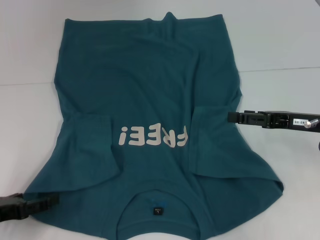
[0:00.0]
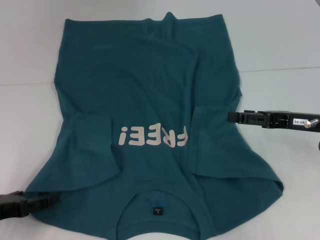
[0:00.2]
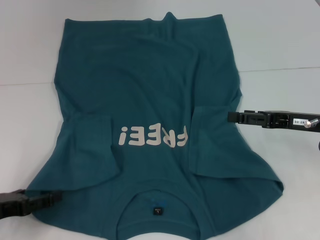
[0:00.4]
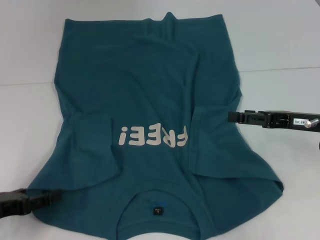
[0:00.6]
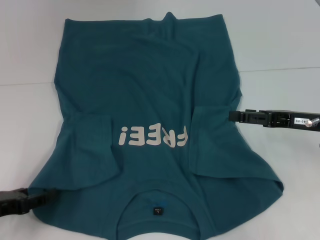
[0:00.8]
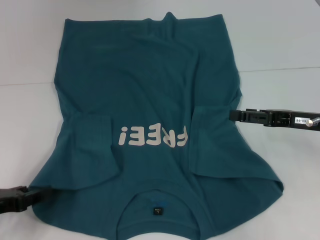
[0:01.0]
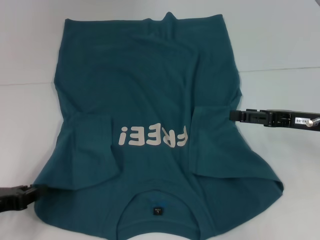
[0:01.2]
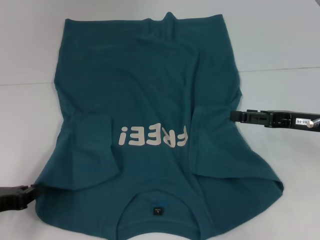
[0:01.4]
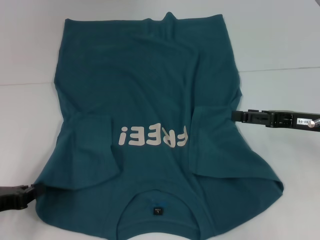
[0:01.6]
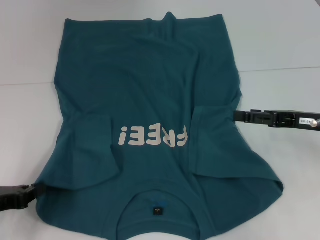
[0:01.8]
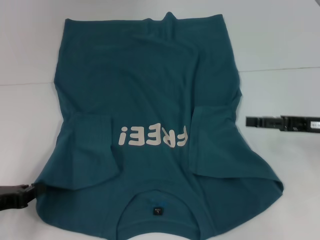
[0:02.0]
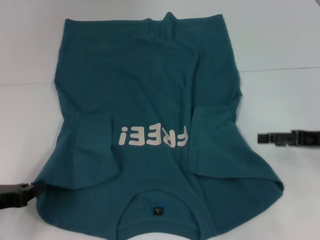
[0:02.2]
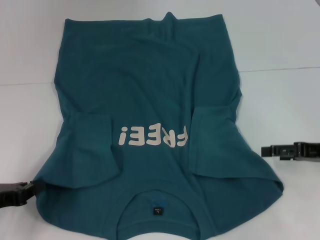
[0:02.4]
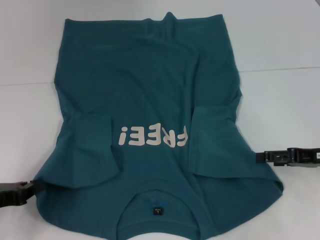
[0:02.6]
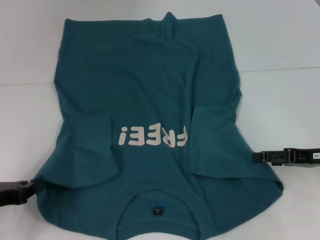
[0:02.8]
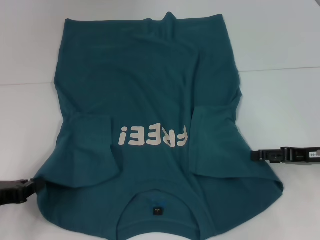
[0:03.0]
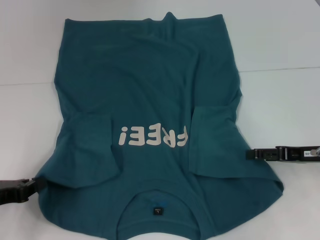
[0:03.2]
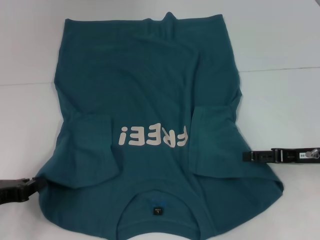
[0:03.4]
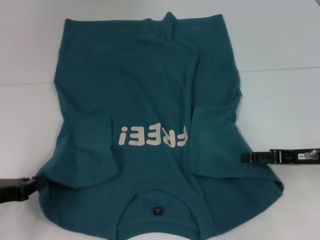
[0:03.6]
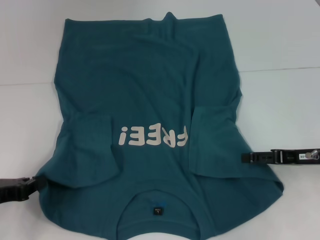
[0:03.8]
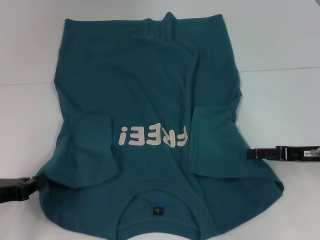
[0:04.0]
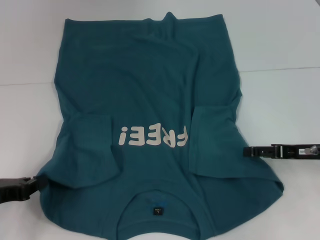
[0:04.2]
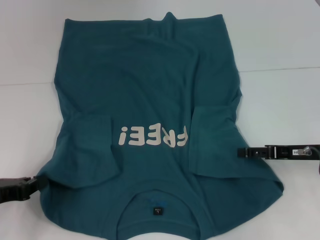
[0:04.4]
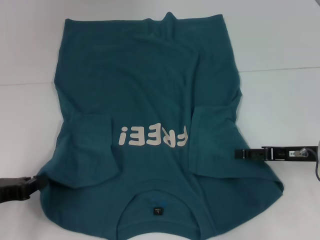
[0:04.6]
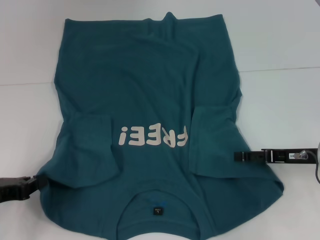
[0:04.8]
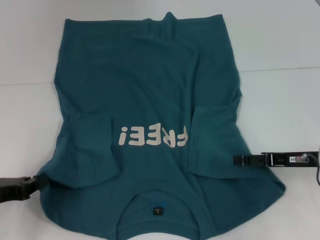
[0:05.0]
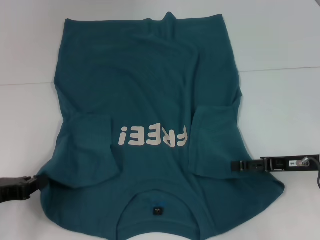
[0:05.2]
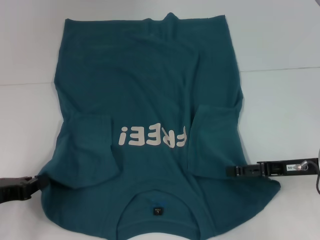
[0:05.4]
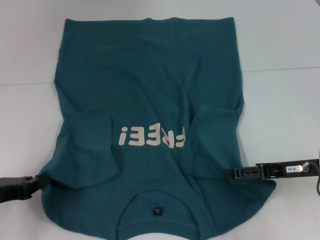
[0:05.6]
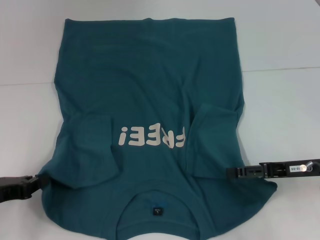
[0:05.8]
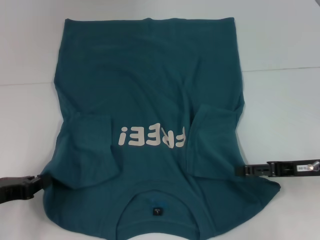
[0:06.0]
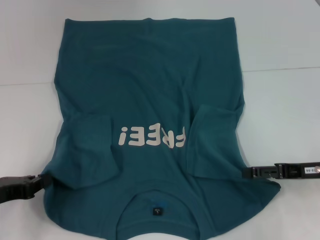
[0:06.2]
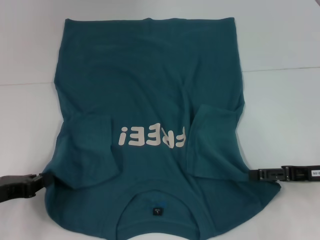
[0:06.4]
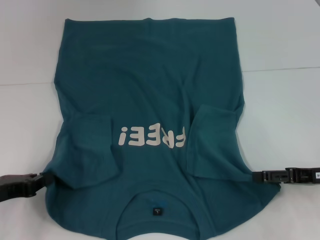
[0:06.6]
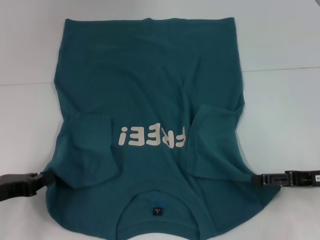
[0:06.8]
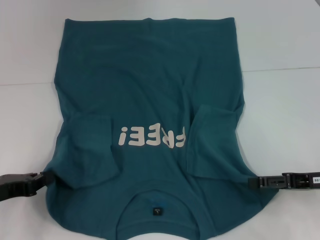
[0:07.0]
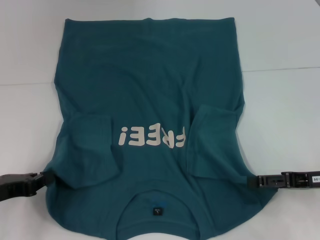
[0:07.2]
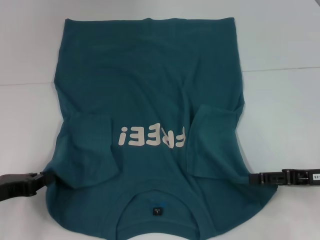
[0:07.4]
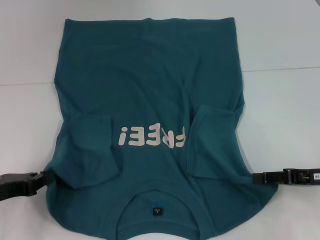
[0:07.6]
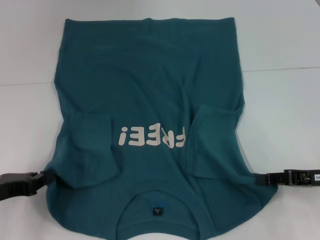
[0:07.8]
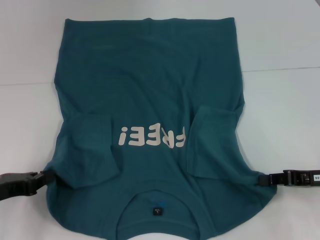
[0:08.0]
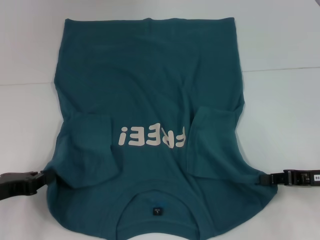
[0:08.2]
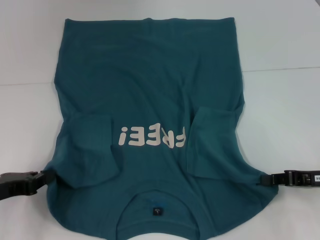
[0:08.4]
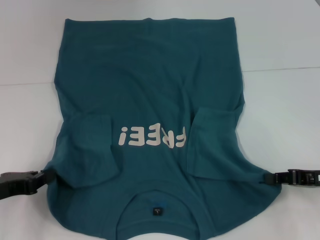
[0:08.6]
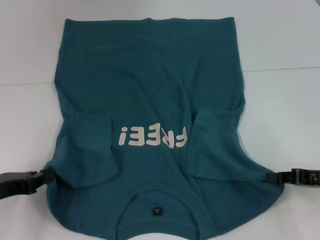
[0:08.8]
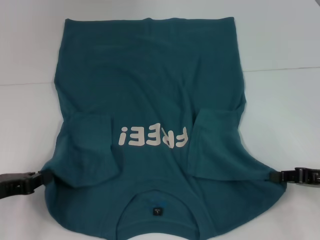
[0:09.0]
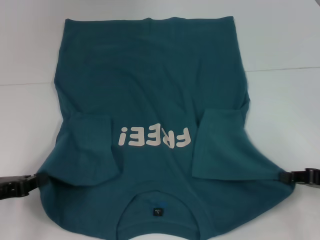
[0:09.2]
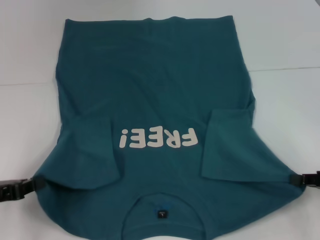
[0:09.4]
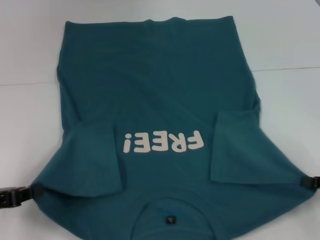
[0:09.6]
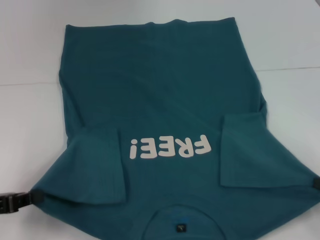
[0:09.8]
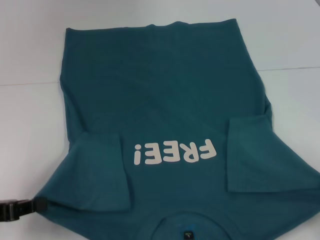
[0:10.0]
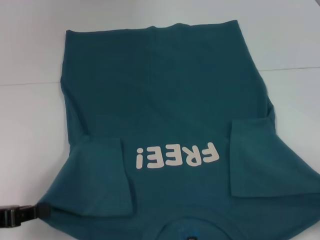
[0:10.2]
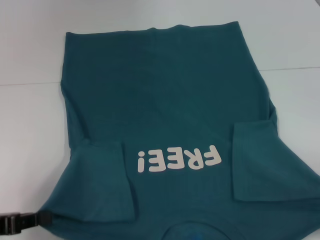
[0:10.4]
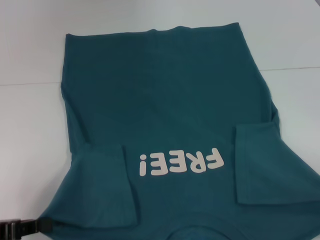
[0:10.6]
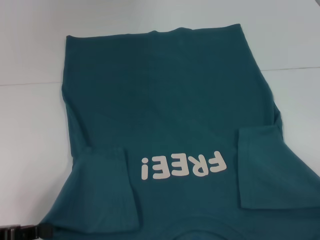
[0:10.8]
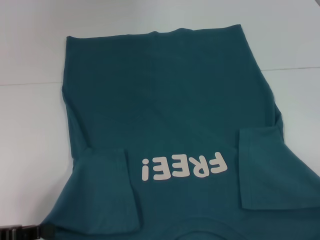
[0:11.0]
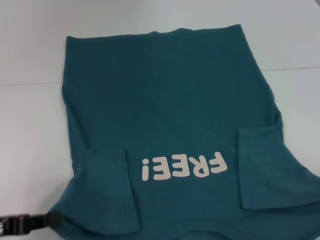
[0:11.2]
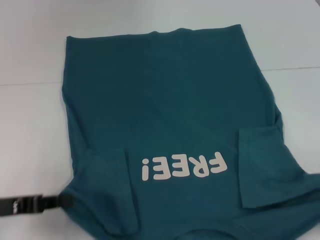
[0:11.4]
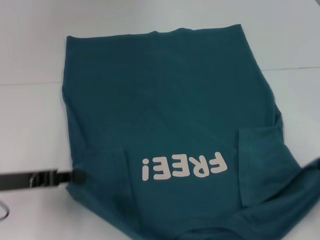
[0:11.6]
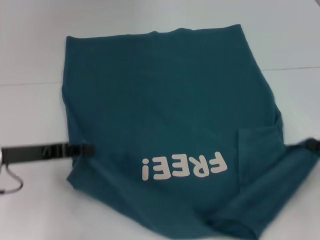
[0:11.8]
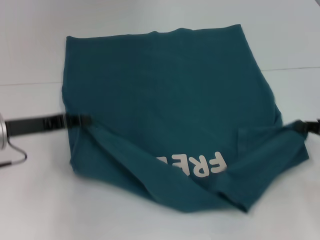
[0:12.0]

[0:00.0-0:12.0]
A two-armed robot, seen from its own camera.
Step, 0:01.8 to 0:08.4: Grab the bottom right corner with your right hand.
0:00.0 to 0:01.6: The left gripper closes.
0:03.0 to 0:07.6: The grippers move only a little.
0:07.6 to 0:09.0: The right gripper closes its fingers.
0:09.0 to 0:10.4: The right gripper shifts approximately 10 cm to the right and backward. Meanwhile the left gripper shifts by about 5 cm.
0:10.4 to 0:12.0: The right gripper heads forward, covering approximately 10 cm; the left gripper goes some 15 cm forward and to the right.

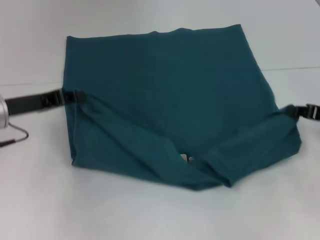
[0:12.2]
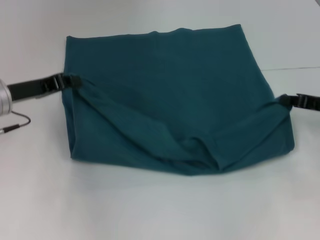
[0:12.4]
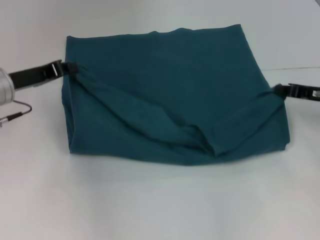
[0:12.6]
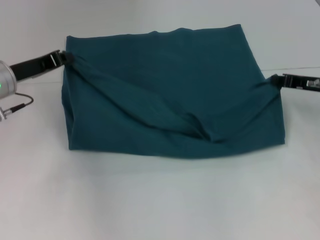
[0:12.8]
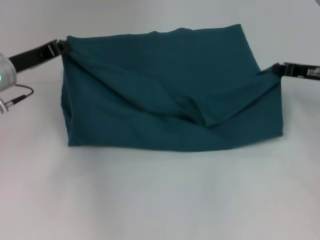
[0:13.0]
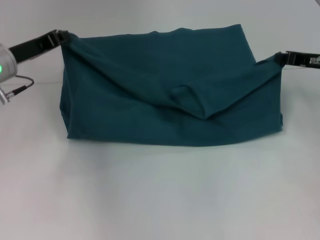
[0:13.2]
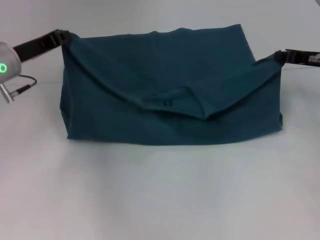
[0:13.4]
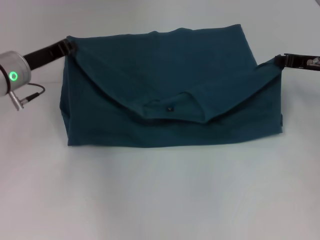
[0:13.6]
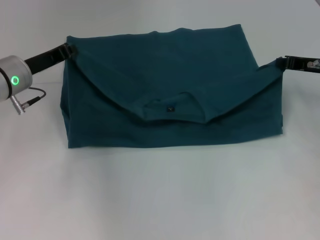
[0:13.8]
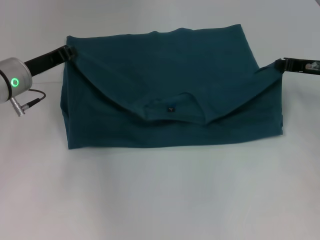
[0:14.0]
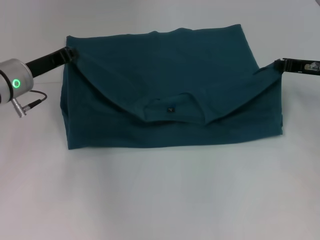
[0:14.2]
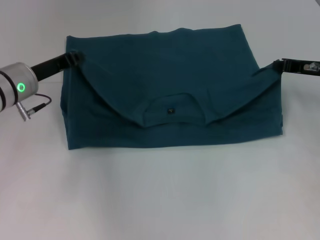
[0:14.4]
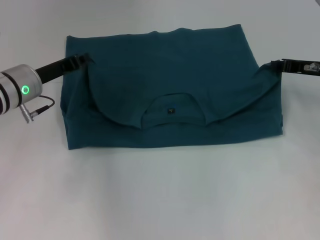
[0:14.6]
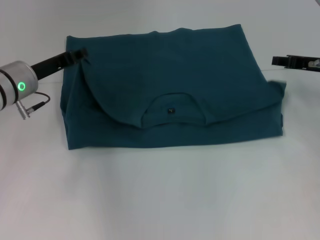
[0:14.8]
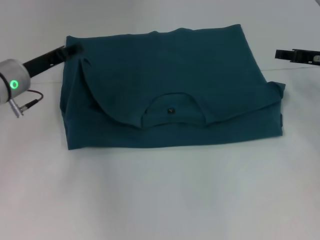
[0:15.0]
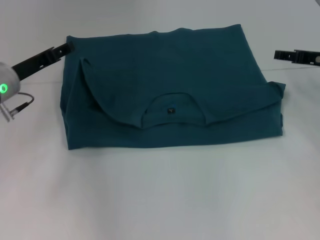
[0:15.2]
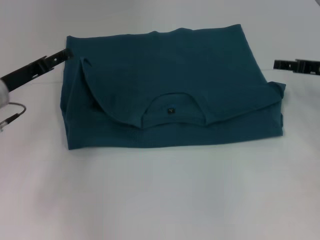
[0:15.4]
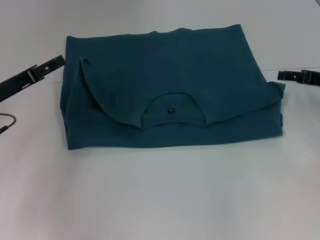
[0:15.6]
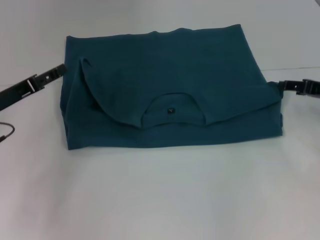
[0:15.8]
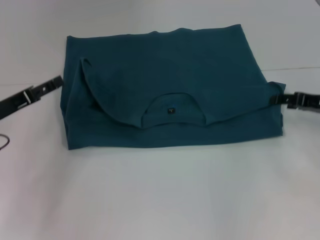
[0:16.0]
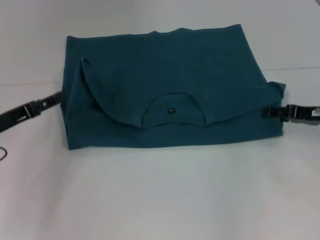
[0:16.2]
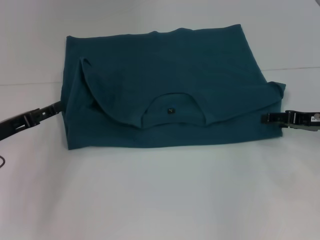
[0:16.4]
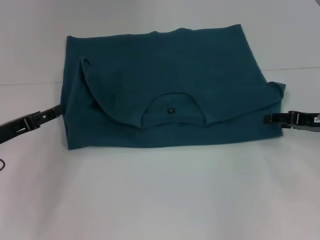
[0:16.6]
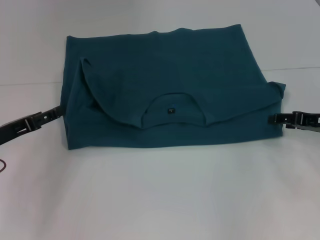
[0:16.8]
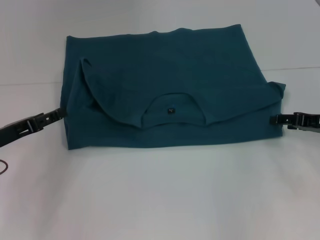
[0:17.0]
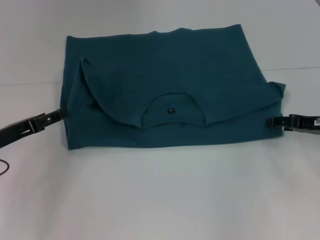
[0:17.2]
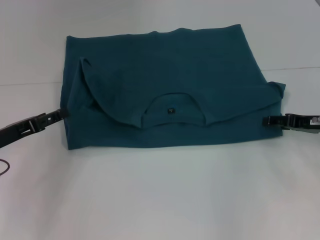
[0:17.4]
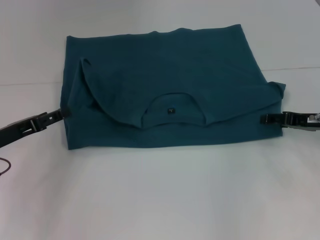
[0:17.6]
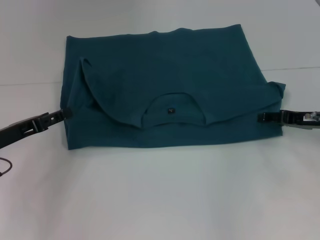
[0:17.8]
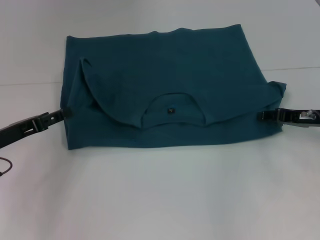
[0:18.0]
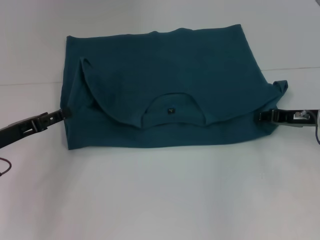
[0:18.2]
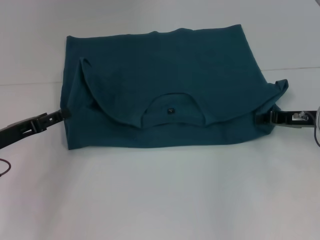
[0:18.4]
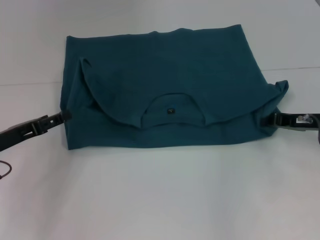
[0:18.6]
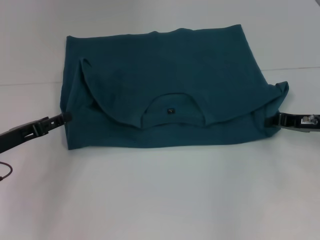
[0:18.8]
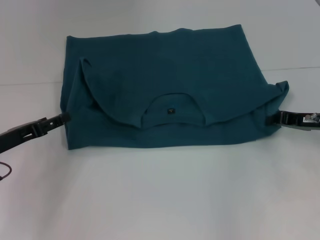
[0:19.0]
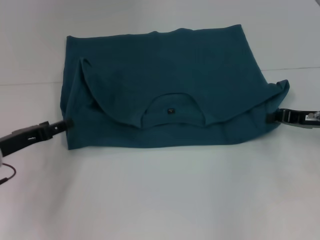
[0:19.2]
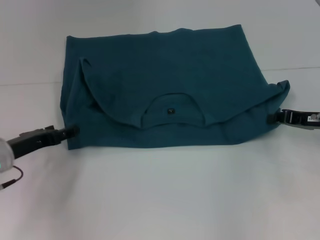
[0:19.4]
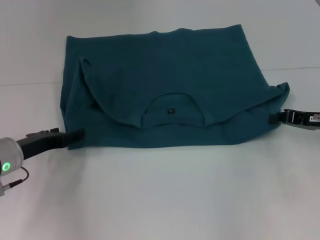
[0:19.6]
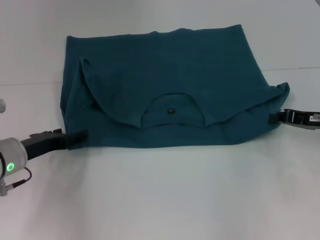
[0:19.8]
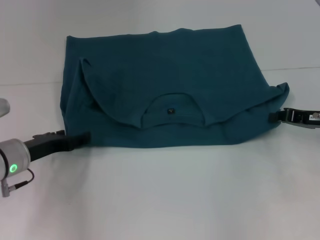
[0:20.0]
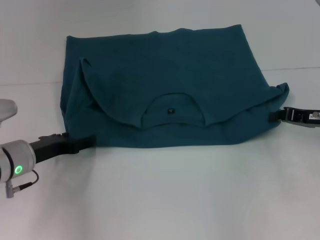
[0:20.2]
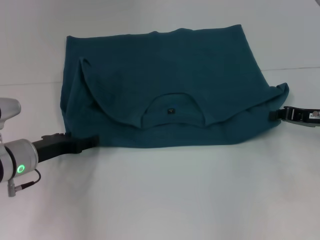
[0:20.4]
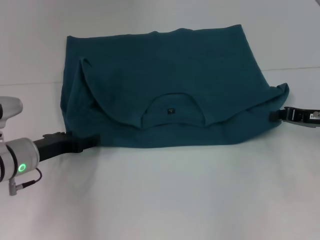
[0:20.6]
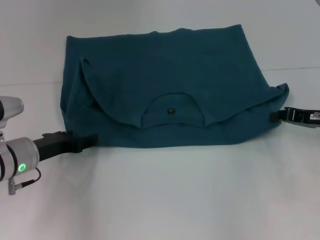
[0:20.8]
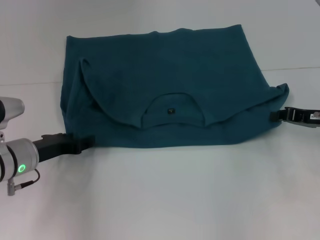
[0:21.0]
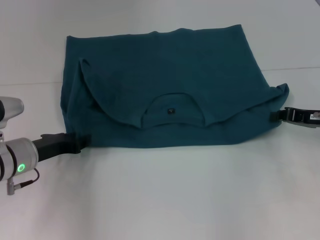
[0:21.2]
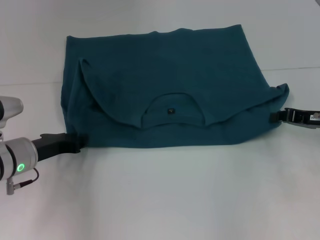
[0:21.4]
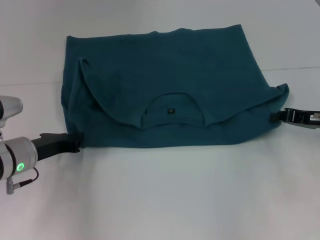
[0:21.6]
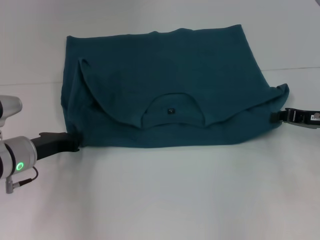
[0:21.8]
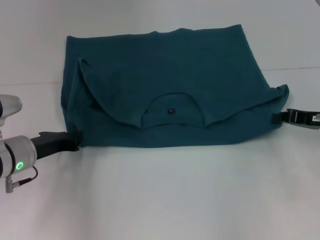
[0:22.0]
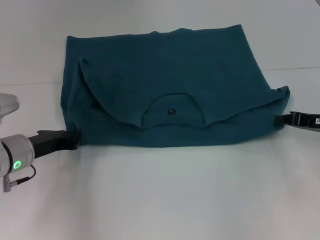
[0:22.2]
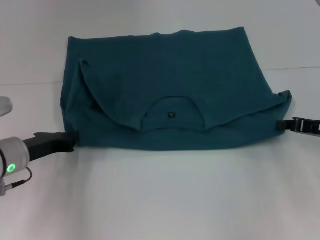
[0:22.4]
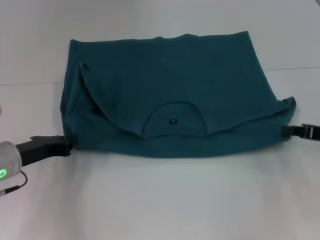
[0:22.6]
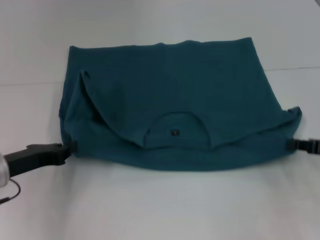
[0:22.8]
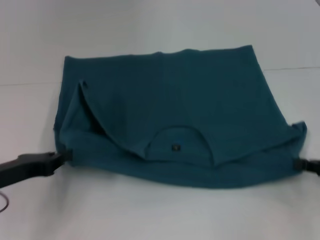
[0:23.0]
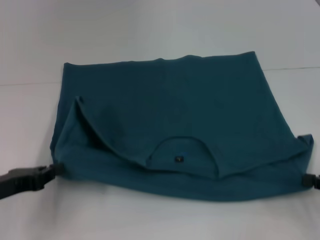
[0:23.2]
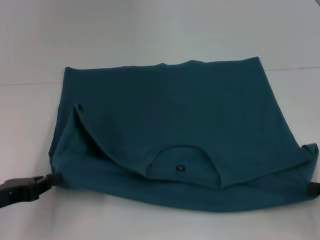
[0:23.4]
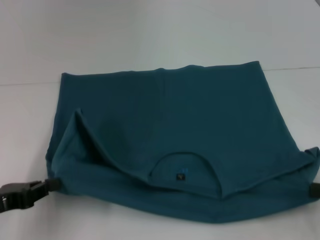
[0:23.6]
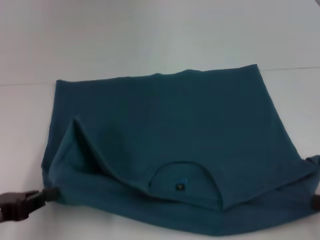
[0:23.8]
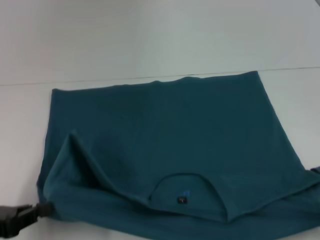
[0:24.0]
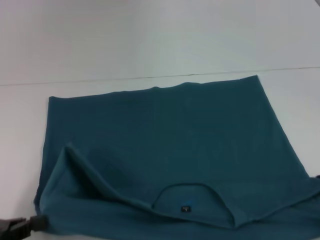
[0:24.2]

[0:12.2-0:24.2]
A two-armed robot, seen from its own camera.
Step, 0:12.2 to 0:15.0: Fold the clothes to the left.
Step, 0:12.2 to 0:15.0: Fold the clothes to the right.
Step, 0:15.2 to 0:23.6: Pull the clothes with your left hand.
Step, 0:15.2 to 0:23.6: Pull the clothes with your right hand.
0:12.2 to 0:13.8: The right gripper heads forward, covering roughly 10 cm; the left gripper goes about 5 cm forward.
0:13.8 to 0:15.2: The left gripper opens. Meanwhile the right gripper opens up.
0:15.2 to 0:16.6: The left gripper goes about 10 cm backward and to the left, and opens its fingers, while the right gripper goes roughly 10 cm backward and downward.
0:16.6 to 0:18.2: The right gripper closes.
0:18.2 to 0:19.8: The right gripper closes. The left gripper moves approximately 5 cm.
0:19.8 to 0:21.2: The grippers make only small movements.
0:21.2 to 0:22.6: The left gripper closes up.
0:22.6 to 0:24.2: The right gripper heads backward, covering about 15 cm, while the left gripper goes about 15 cm backward and to the left.
